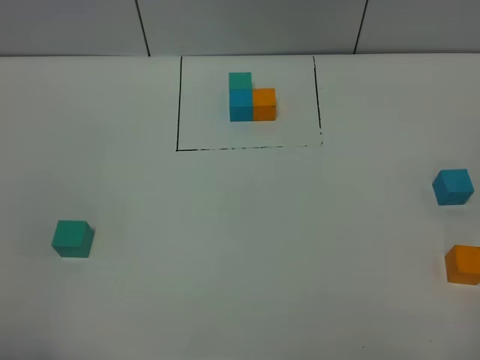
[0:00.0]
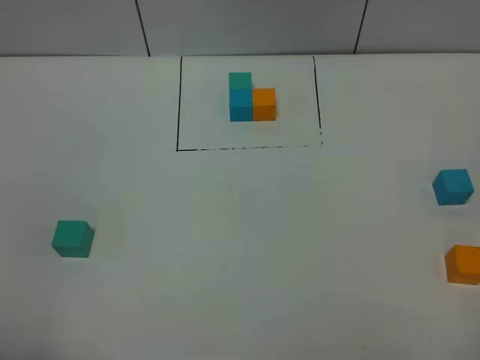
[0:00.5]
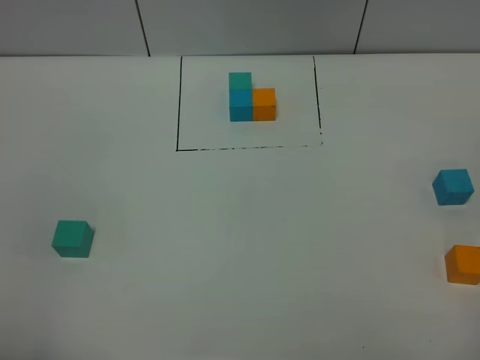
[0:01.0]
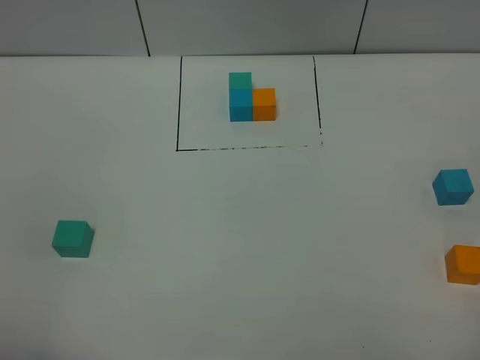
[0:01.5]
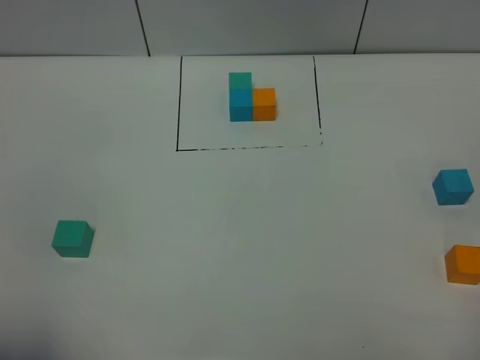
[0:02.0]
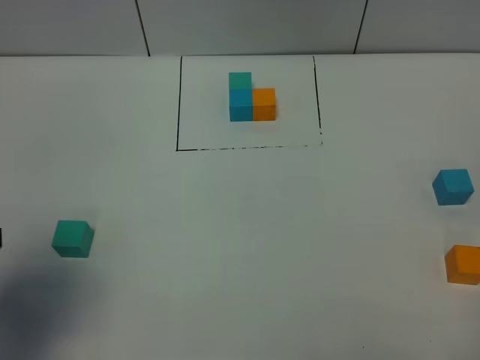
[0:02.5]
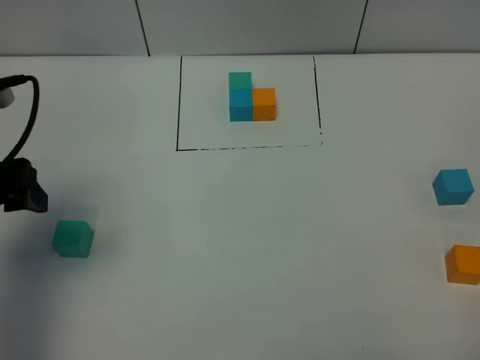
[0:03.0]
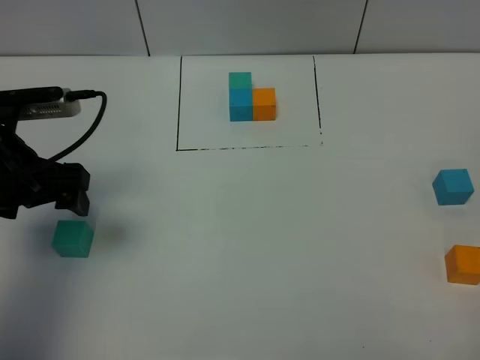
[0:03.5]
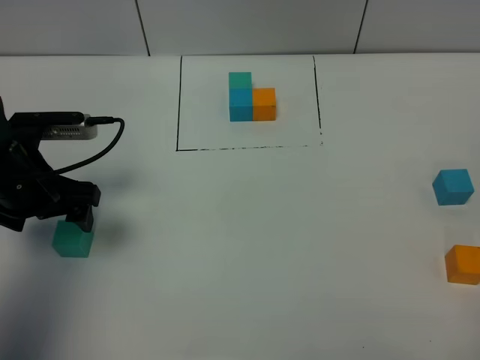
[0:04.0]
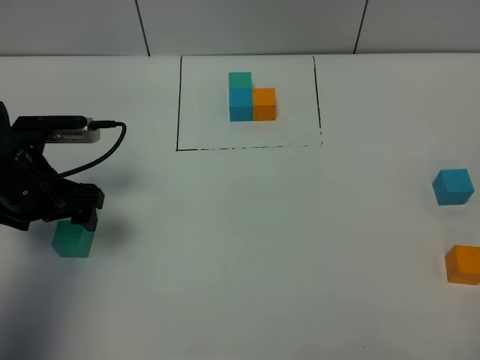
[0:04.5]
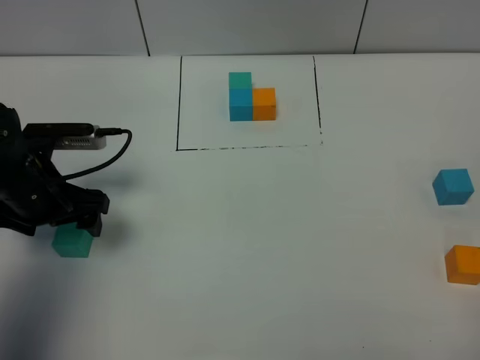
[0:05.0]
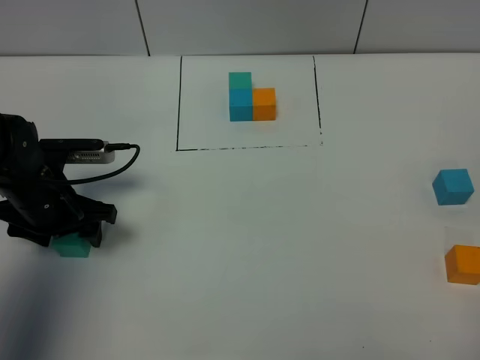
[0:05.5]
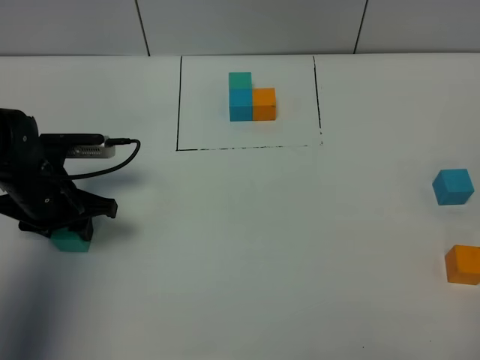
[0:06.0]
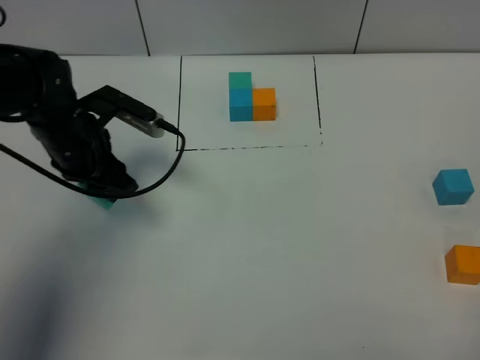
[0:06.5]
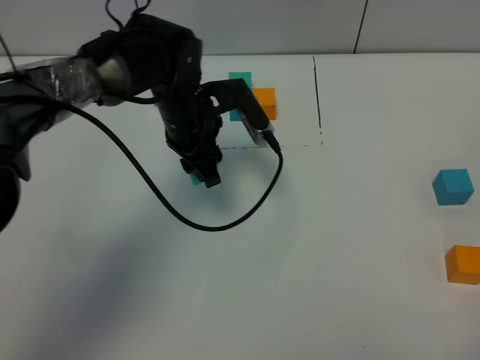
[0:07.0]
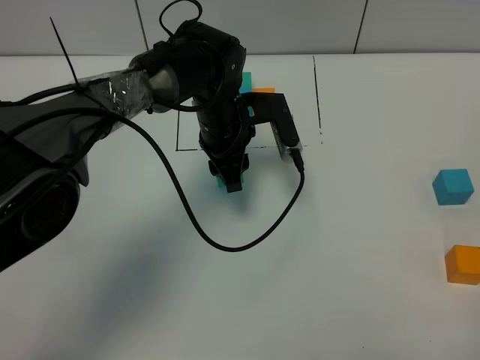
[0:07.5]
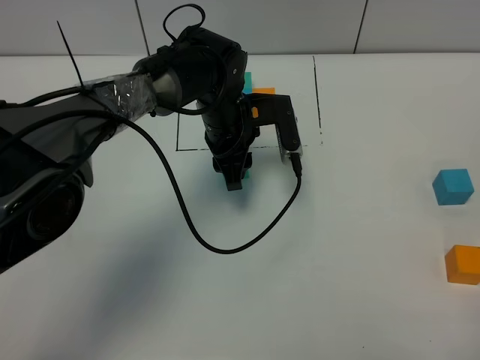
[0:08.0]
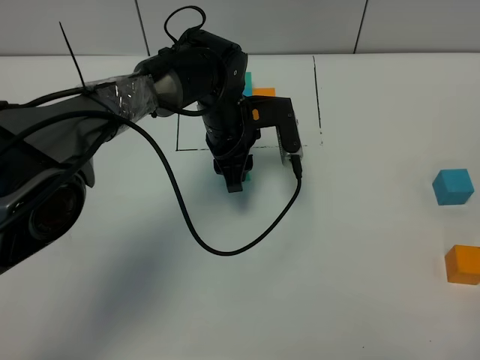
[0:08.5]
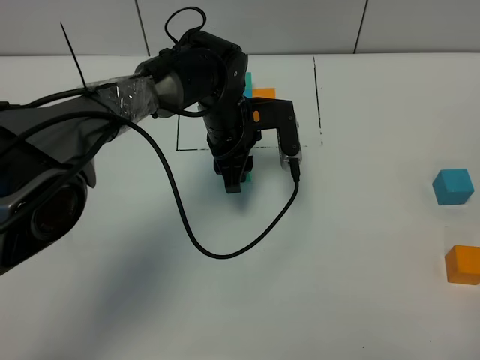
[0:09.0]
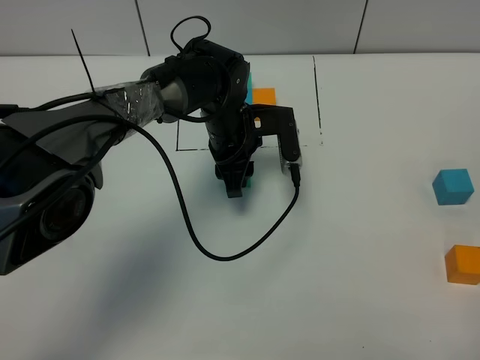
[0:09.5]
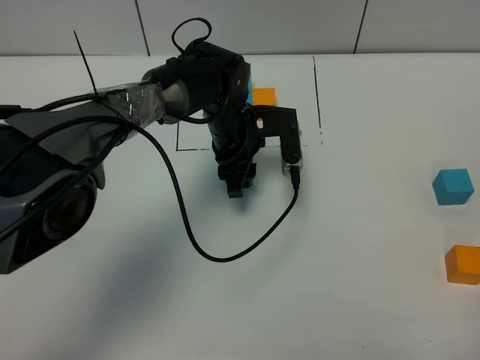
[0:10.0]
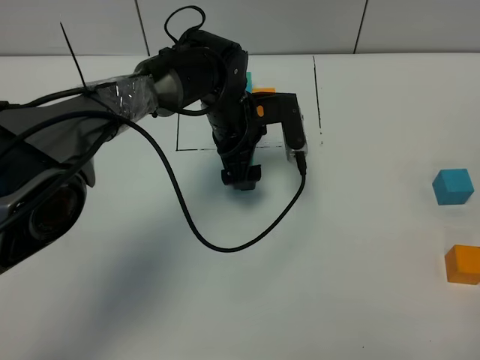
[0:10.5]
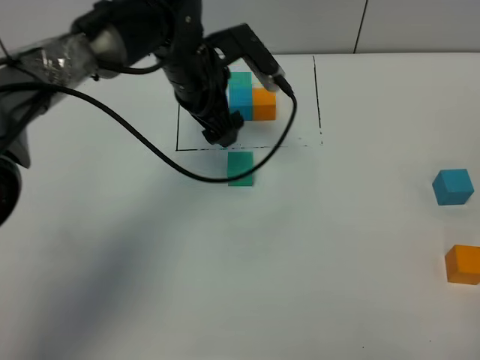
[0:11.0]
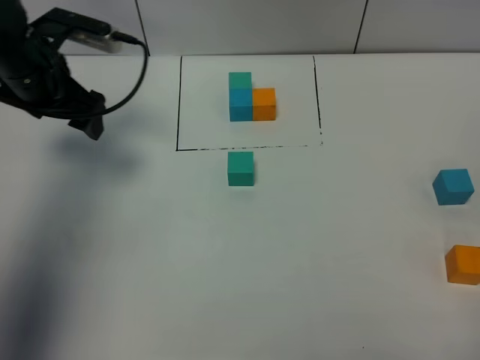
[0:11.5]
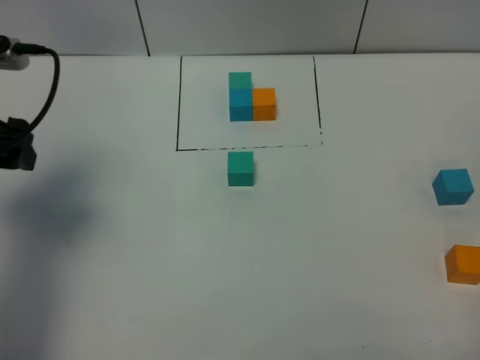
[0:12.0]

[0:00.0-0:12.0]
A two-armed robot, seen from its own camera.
Task of the whole recording: According to the building block template in front, assemble the scattered blocks together.
Step, 0.0 to 10.0 s: Put the green build block in the center of the table.
2.0 to 4.0 s: The left gripper goes about 25 cm forward.
4.0 to 6.0 s: The left gripper moves downward, approximately 5 cm, and closes its fingers.
6.0 to 8.0 s: The left gripper heads to the right and forward, covering about 25 cm.
8.0 to 10.0 s: The grippers move only a little.
10.0 to 12.0 s: The left gripper is displaced to the left, upward and backward by some 35 cm, and opens.

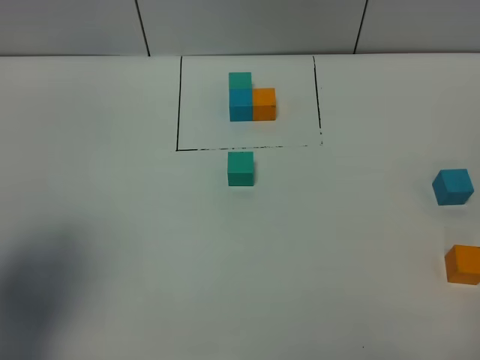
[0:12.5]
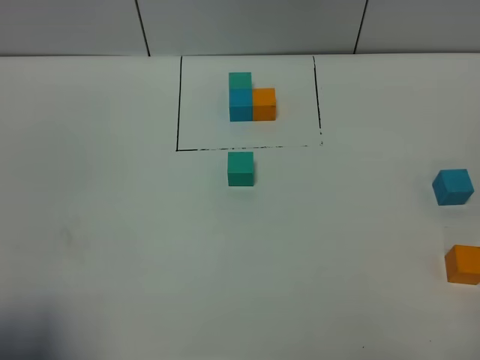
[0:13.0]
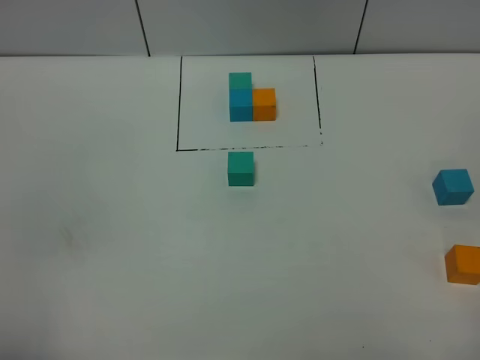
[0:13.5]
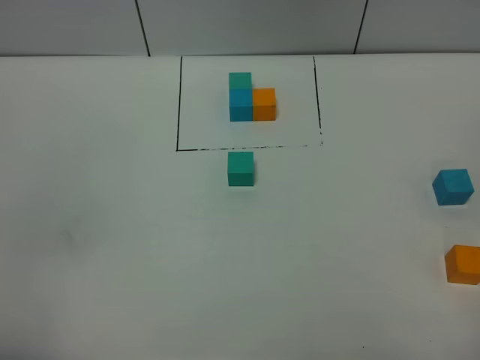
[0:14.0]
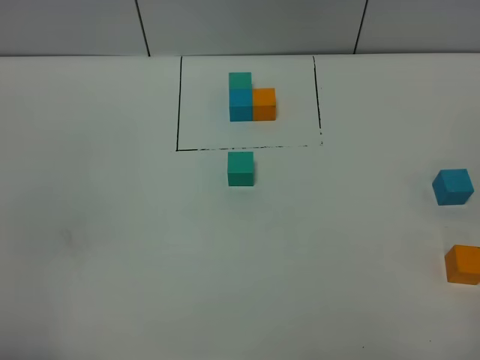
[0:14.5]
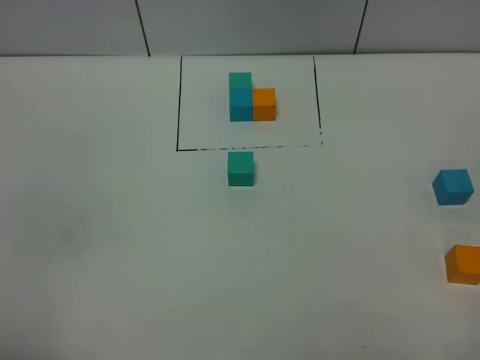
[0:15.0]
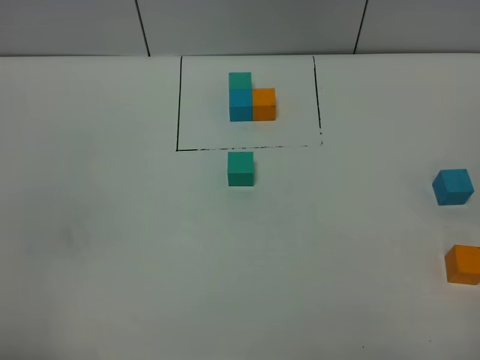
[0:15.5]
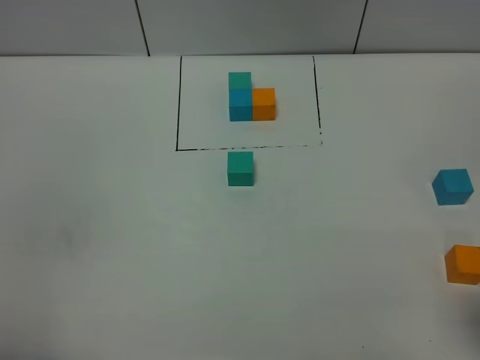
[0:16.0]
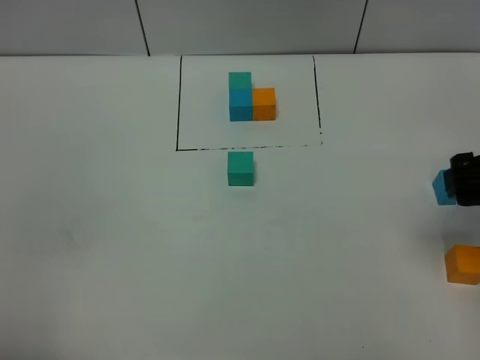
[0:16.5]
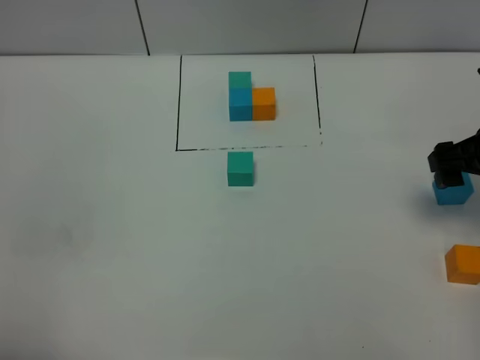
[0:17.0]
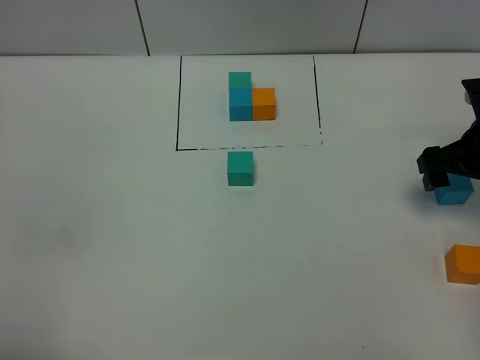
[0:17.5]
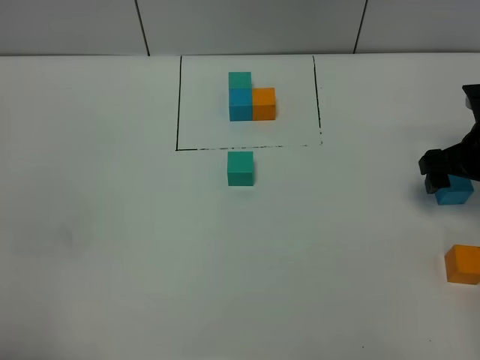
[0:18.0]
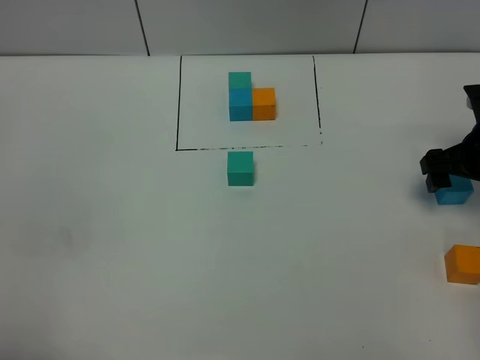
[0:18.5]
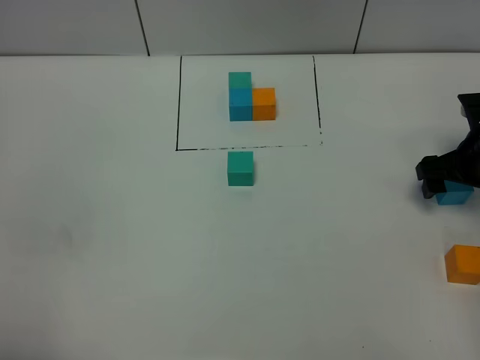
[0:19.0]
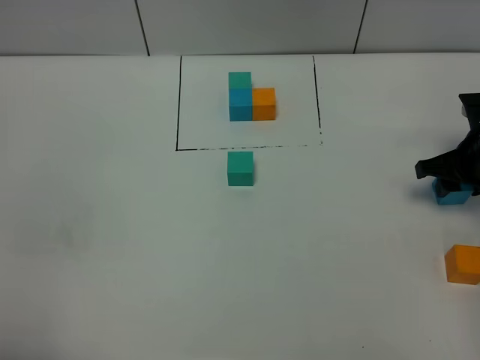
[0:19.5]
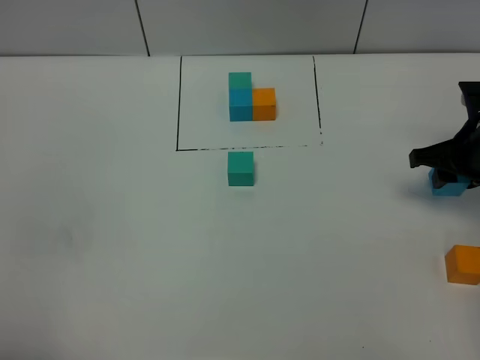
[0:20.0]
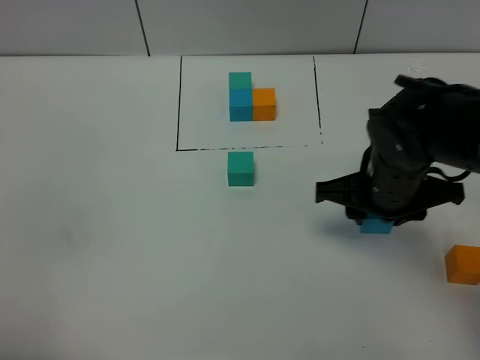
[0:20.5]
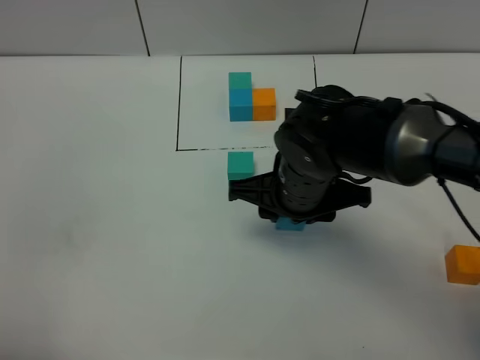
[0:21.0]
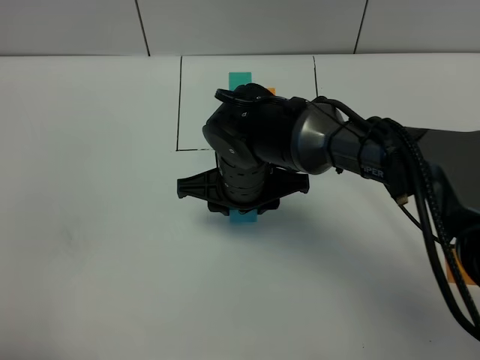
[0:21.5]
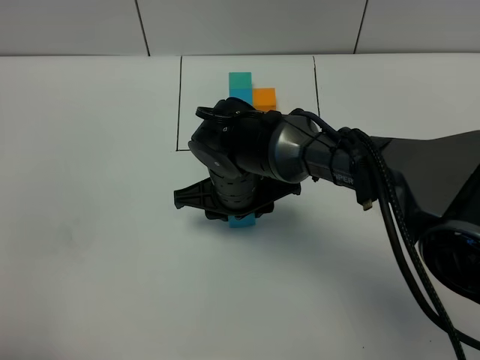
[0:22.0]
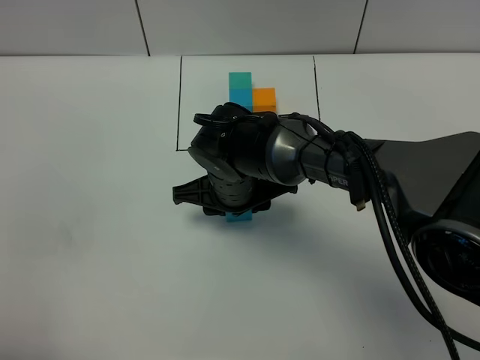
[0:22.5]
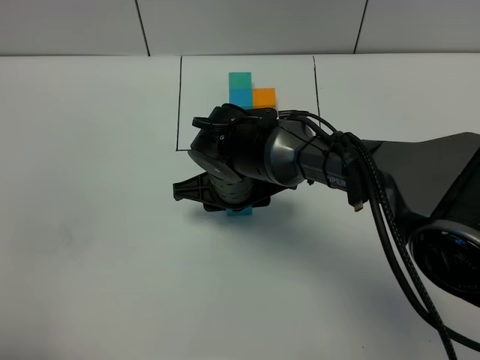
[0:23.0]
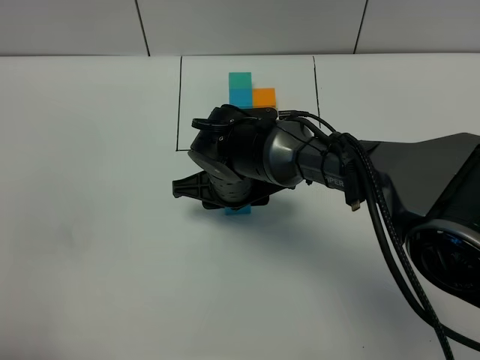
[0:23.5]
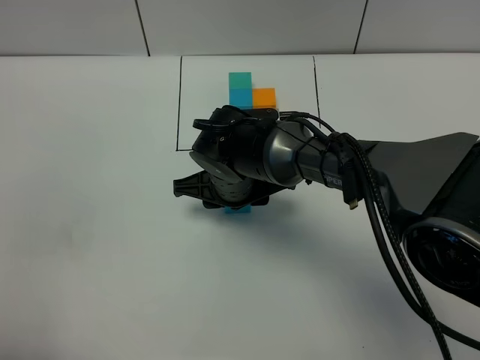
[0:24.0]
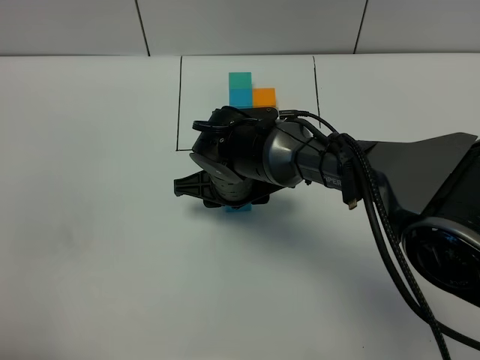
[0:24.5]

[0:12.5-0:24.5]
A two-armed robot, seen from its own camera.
Task of the whole recording: According to the building block template in front, assemble the scattered blocks together.
12.5 to 14.5 s: The left gripper moves backward, about 15 cm.
14.5 to 16.5 s: The right gripper is displaced forward by some 25 cm.
16.5 to 18.5 s: The right gripper is displaced downward and forward by some 15 cm.
18.5 to 20.5 s: The right gripper goes some 15 cm to the left, and closes up.
20.5 to 22.5 s: The right gripper goes approximately 15 cm to the left.
22.5 to 24.5 s: The grippers make only small movements.

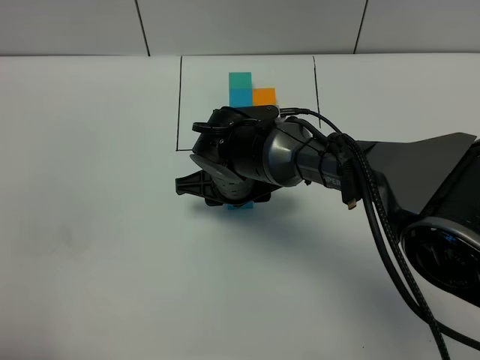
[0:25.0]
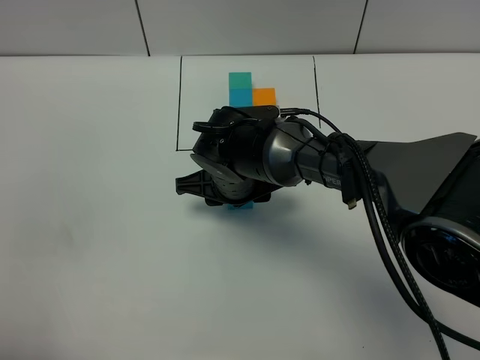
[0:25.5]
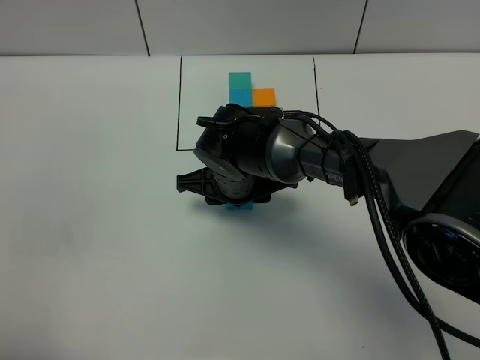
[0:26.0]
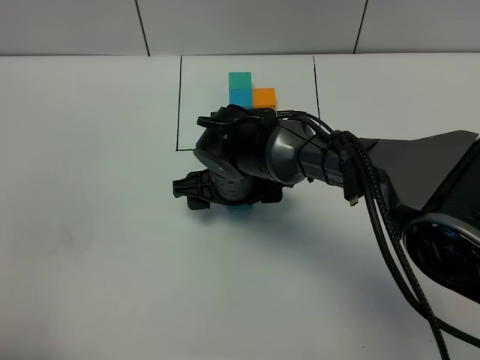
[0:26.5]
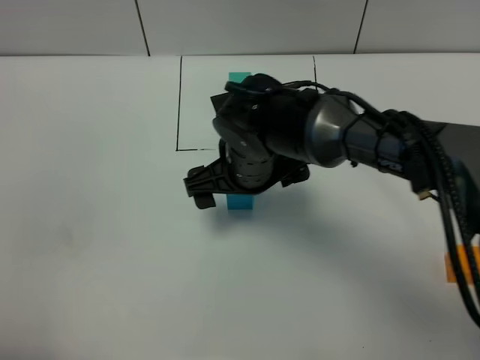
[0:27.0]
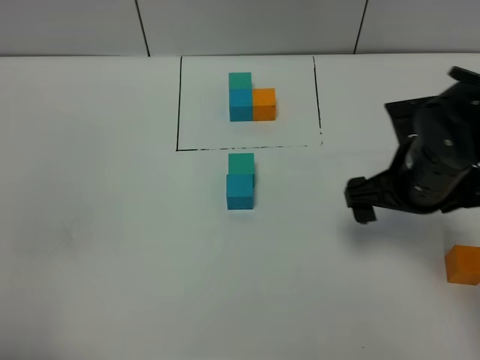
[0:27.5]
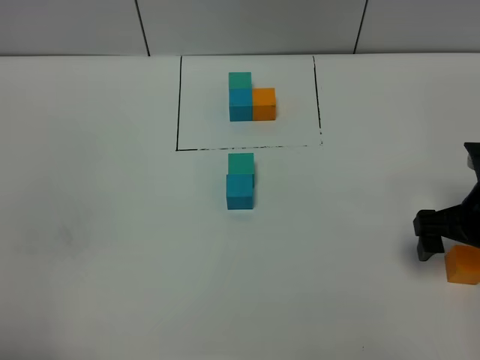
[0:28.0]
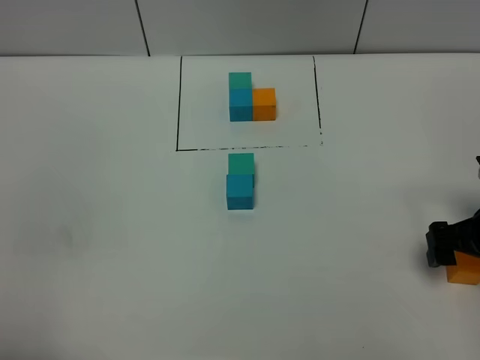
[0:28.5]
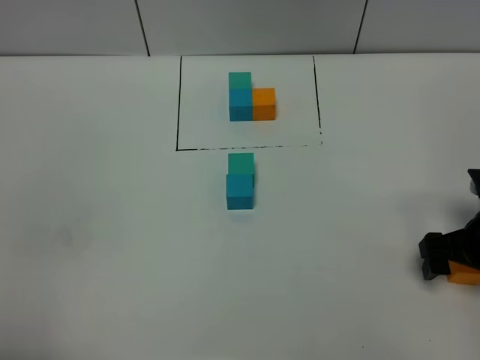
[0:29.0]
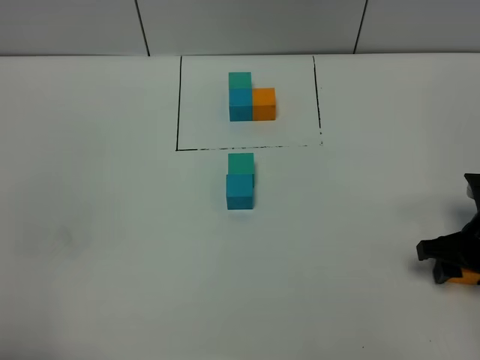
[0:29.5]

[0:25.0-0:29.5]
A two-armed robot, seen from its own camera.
Task of the whole recording: According to the building block template in front, assemble the scattered blocks together.
25.0 to 27.0 s: The right gripper travels upward by about 5 cm, and opens up.
27.0 to 29.5 s: The right gripper shifts about 25 cm to the right, and closes up.
